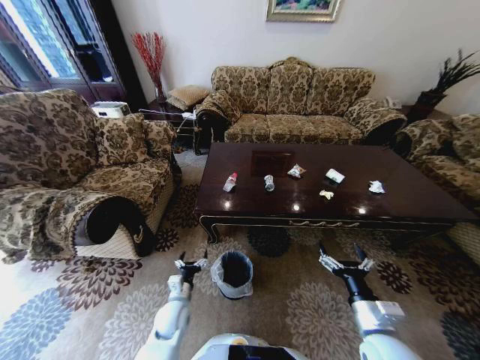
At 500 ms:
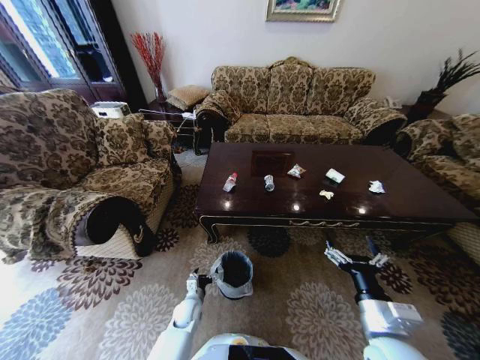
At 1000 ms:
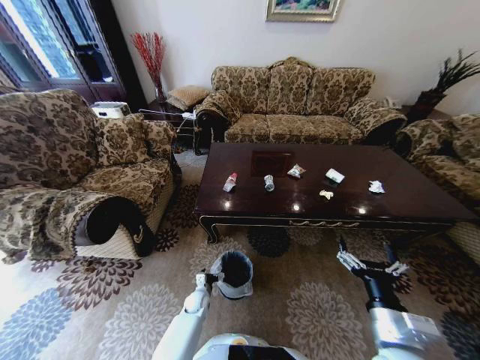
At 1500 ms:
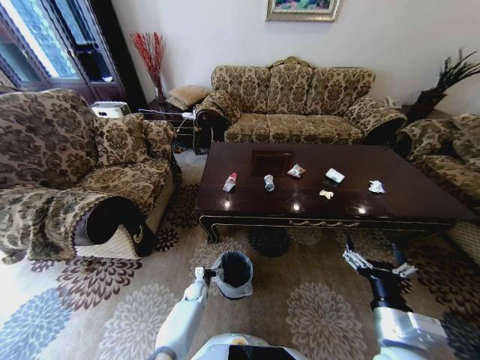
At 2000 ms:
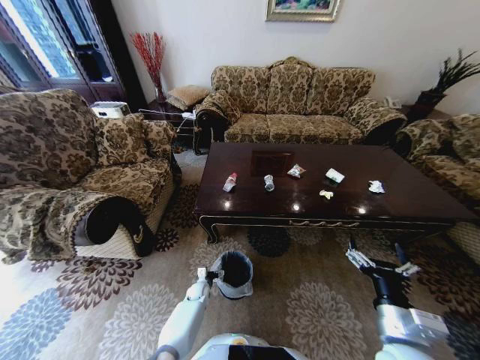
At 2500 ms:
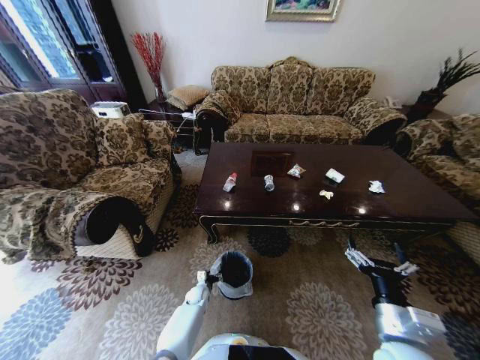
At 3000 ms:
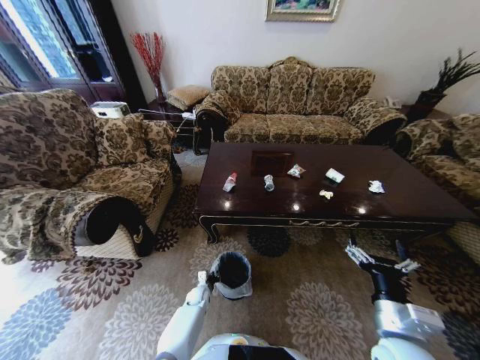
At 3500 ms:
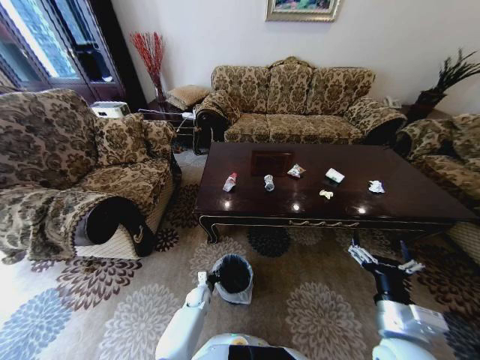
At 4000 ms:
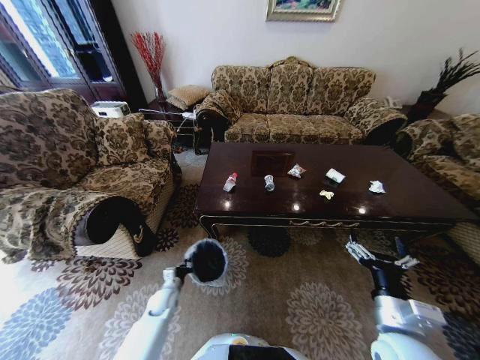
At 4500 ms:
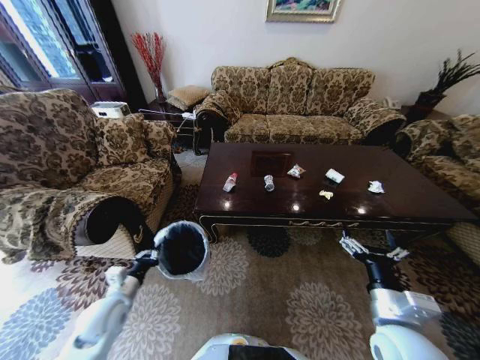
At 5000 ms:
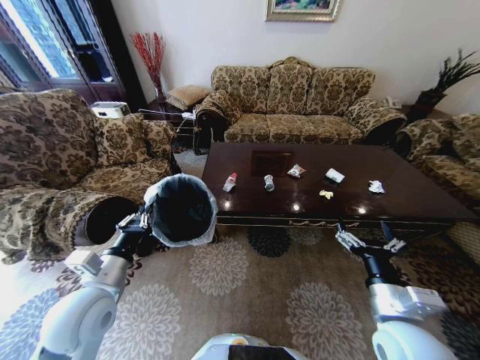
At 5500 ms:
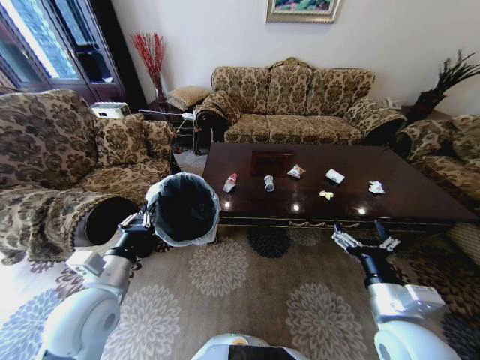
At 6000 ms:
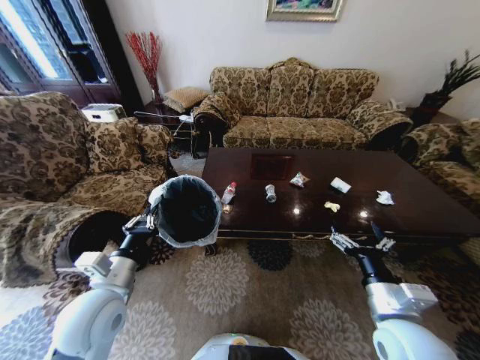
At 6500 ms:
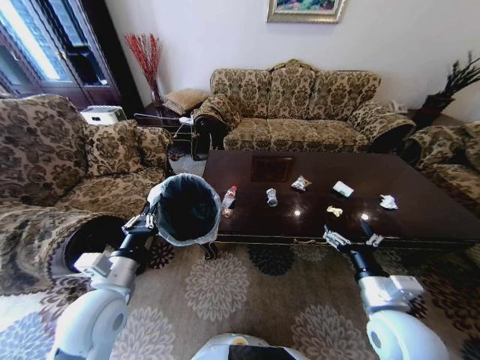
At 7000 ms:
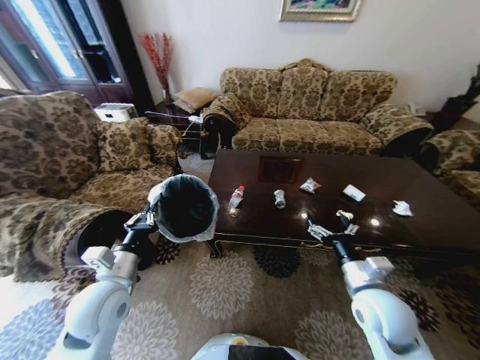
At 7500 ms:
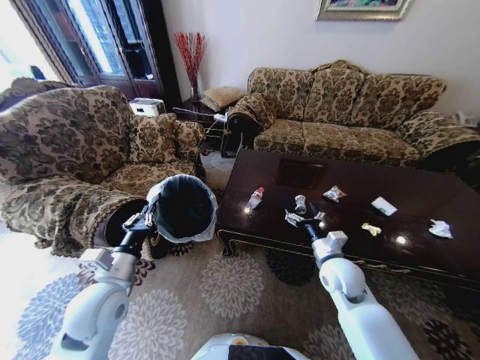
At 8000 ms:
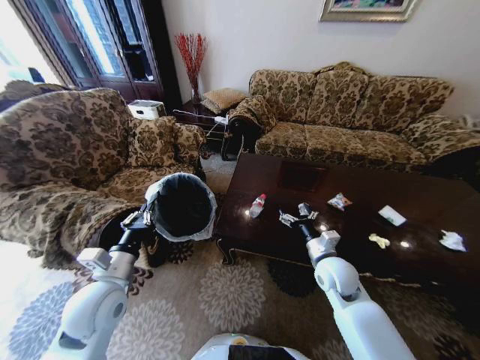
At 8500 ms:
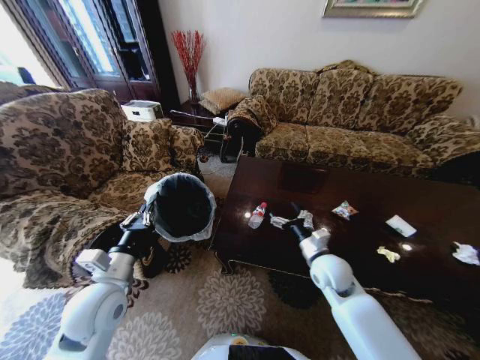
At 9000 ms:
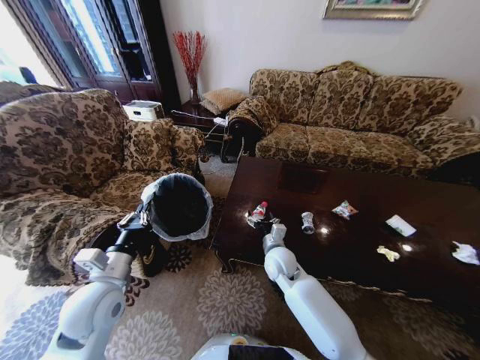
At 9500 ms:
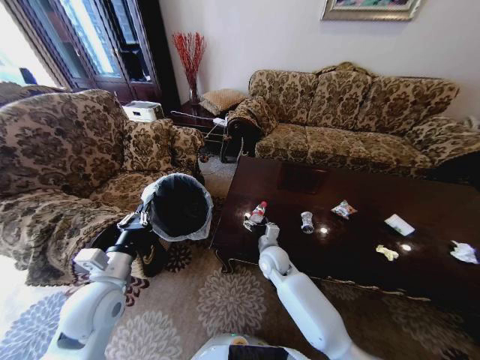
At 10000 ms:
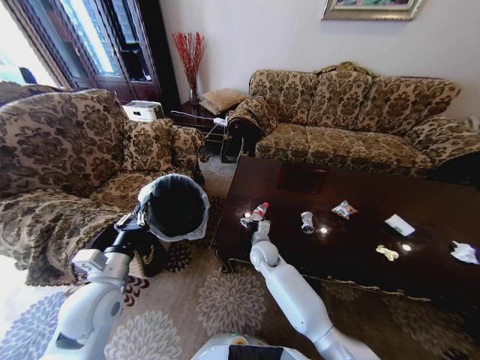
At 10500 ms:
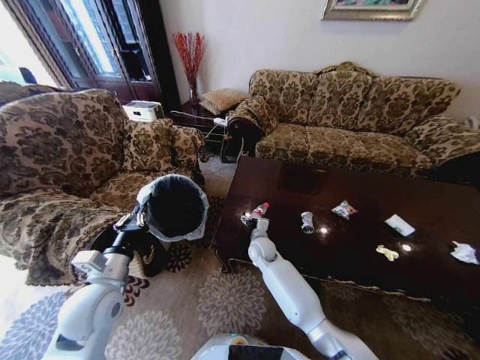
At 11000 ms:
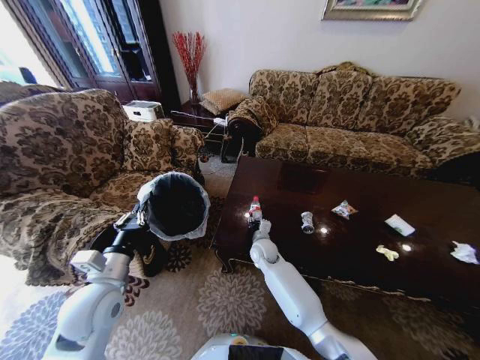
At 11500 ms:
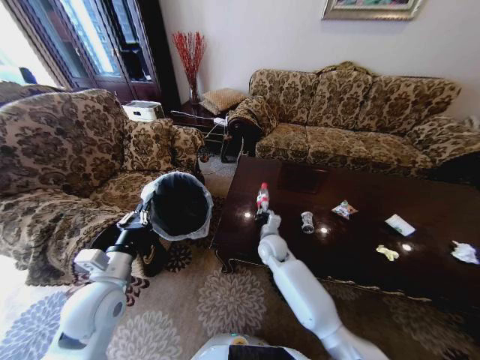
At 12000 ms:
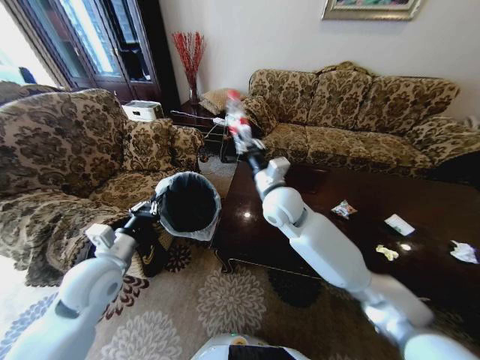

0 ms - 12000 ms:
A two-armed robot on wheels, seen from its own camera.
Task of the whole recording: Move to the front of the table and place the trash on the table into the trash bin.
0 ms - 2000 ms: The right gripper changes place by approximately 5 cm. The left gripper is displaced downward and forward by approximately 20 cm.
2000 ms - 4000 ms: The left gripper shifts roughly 15 cm to the left, upward and backward, and closes.
4000 ms - 6000 ms: The left gripper moves upward, roughly 35 cm.
6000 ms - 8000 ms: The right gripper travels forward and downward by approximately 15 cm.
8000 ms - 10000 ms: The right gripper heads to the left, forward and downward, covering approximately 20 cm.
10000 ms - 12000 ms: The right gripper moves upward, about 25 cm, and closes its fingers.

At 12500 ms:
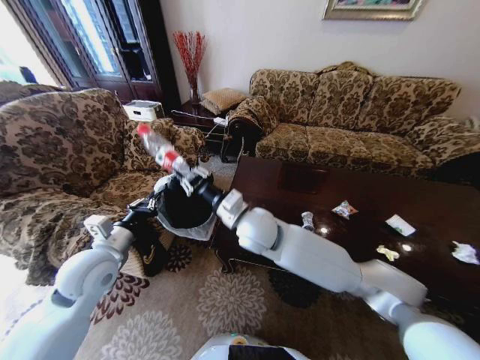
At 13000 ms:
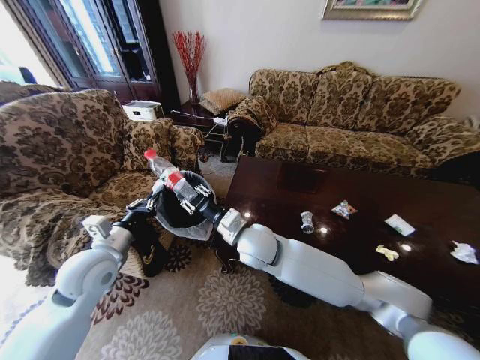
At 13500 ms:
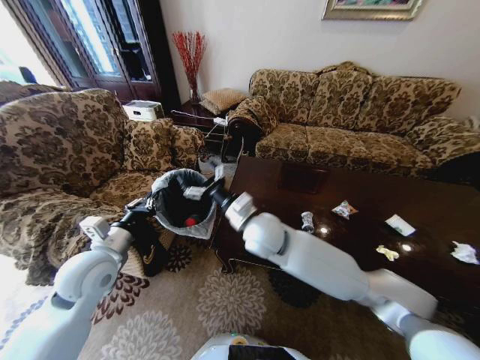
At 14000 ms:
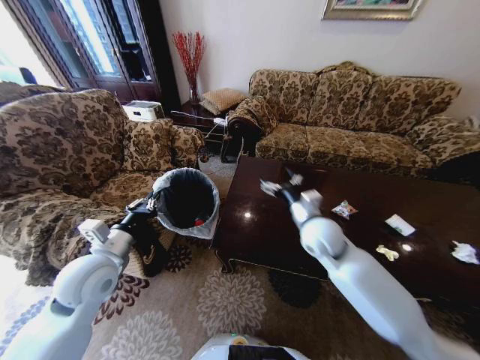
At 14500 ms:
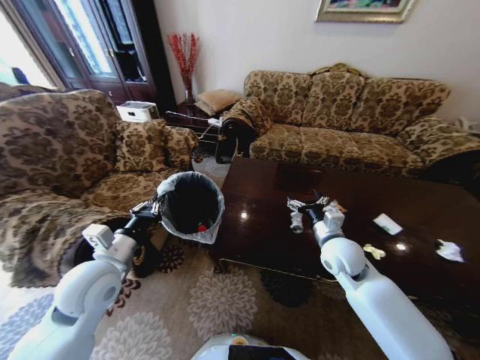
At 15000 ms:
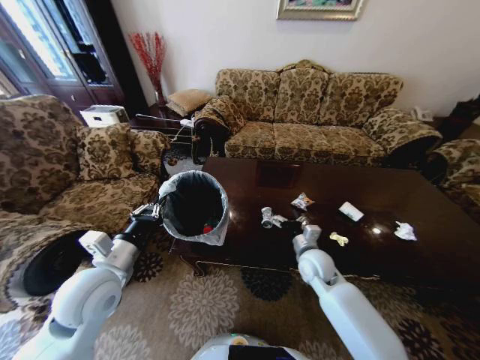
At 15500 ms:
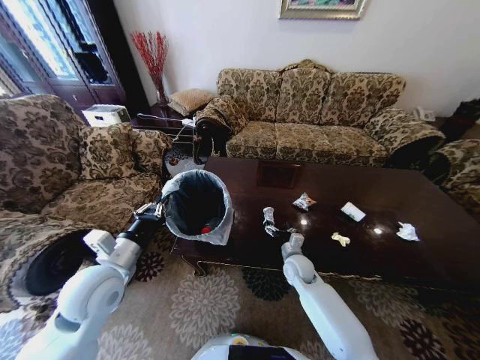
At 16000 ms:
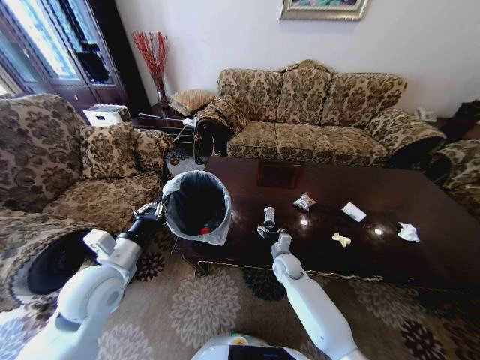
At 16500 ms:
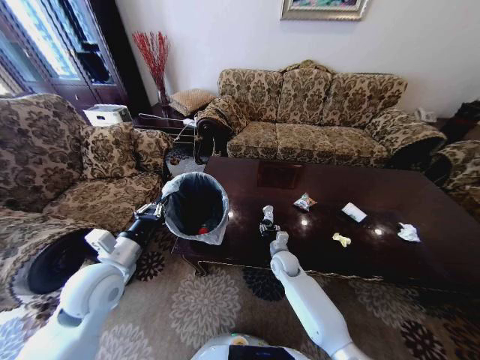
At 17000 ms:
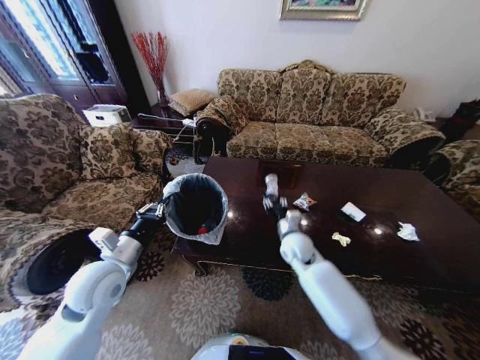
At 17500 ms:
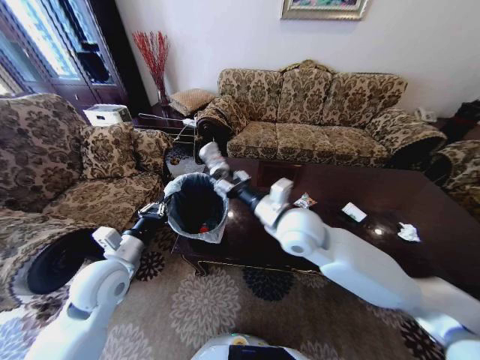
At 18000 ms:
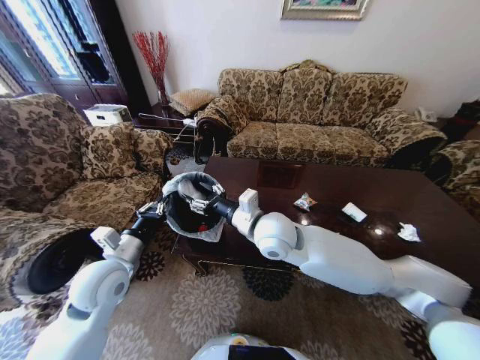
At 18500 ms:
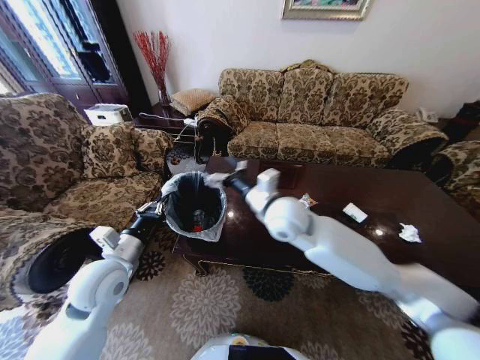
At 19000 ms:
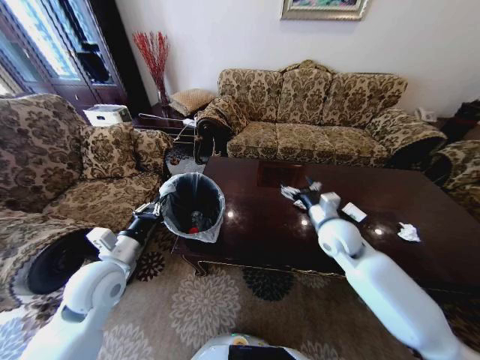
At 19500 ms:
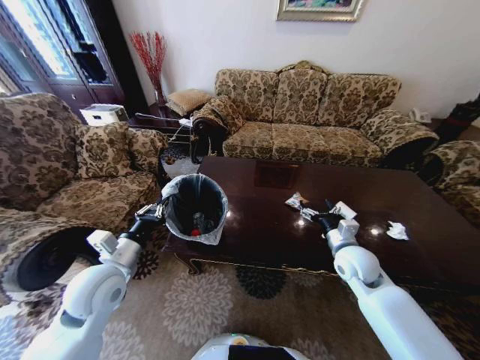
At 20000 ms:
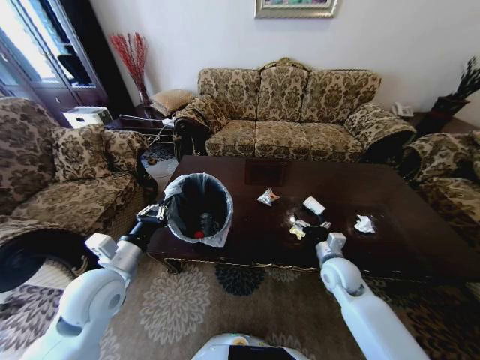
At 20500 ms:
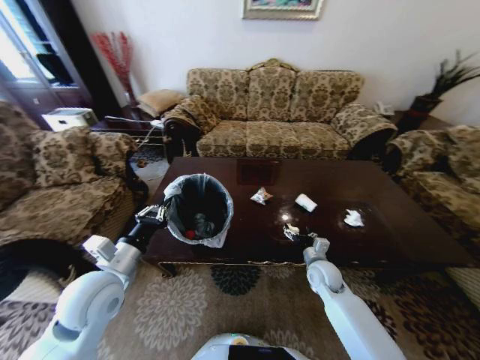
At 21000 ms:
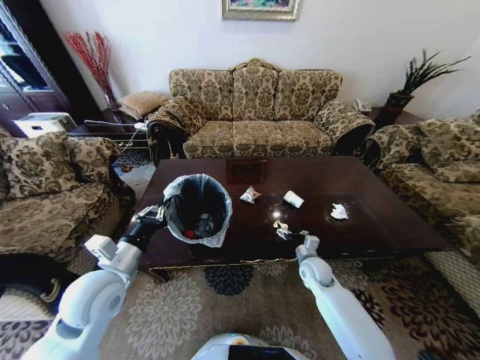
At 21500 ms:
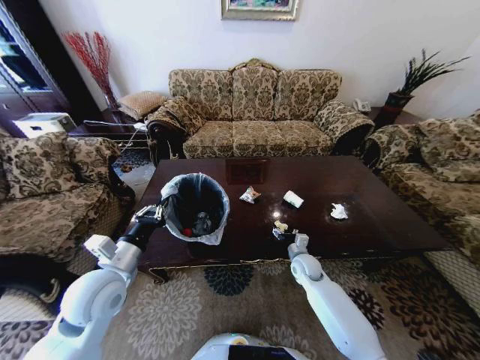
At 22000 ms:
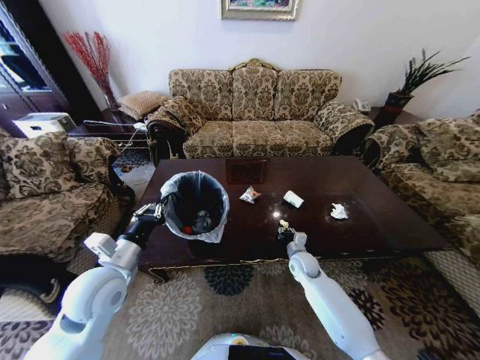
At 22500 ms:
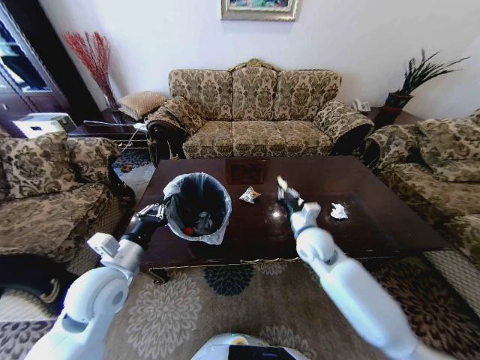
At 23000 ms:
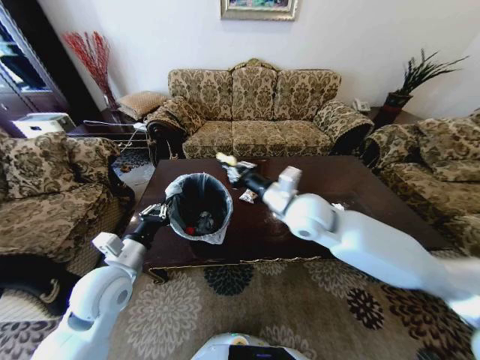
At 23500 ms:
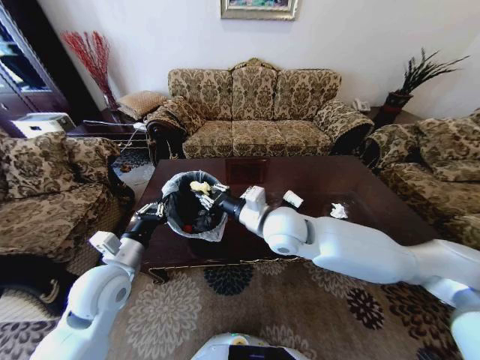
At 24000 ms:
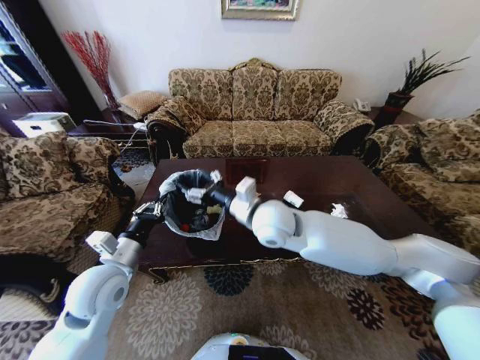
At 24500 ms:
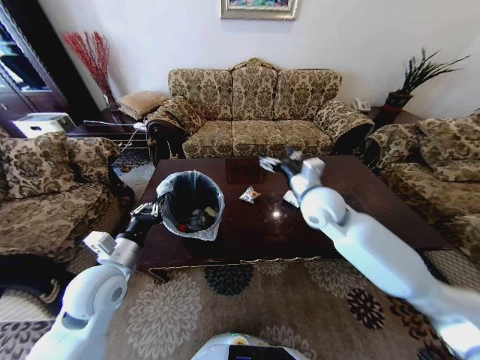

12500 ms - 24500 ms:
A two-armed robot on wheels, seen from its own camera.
Task of the whole recording: Move to the front of the table and place the trash on the table into the trash bin.
12500 ms - 14500 ms: The right gripper heads to the right, covering approximately 25 cm, and opens.
14500 ms - 16500 ms: The right gripper heads downward and to the left, covering some 20 cm, and closes up.
16500 ms - 18500 ms: The right gripper heads upward, covering some 30 cm, and opens.
18500 ms - 20500 ms: The right gripper is displaced downward and to the right by some 30 cm.
20500 ms - 22500 ms: The right gripper moves upward and to the left, some 15 cm, and closes up.
22500 ms - 24500 ms: The right gripper shifts some 10 cm upward, travels to the left and back again, approximately 15 cm each way, and opens.

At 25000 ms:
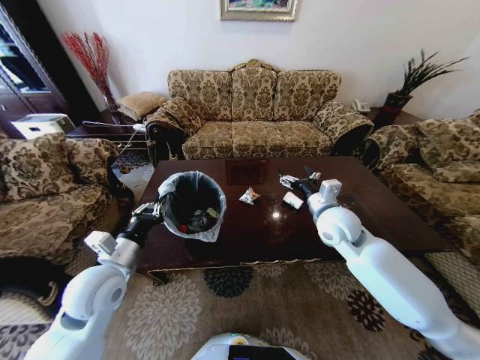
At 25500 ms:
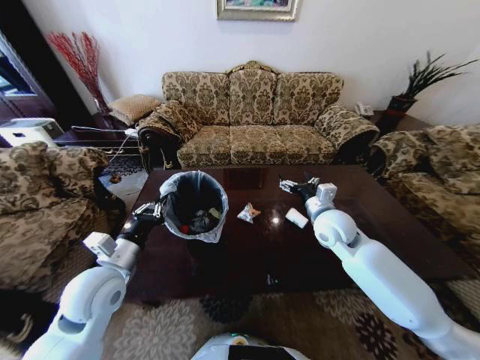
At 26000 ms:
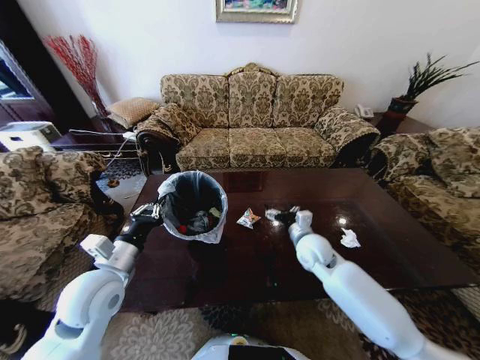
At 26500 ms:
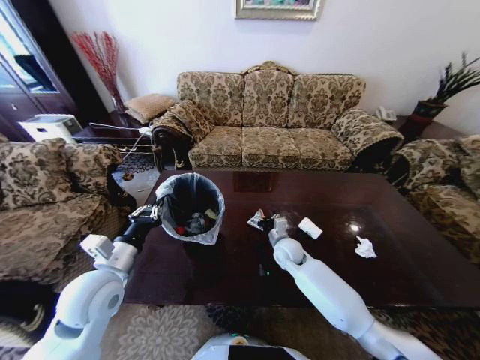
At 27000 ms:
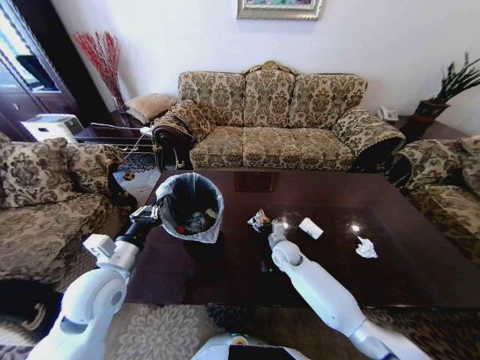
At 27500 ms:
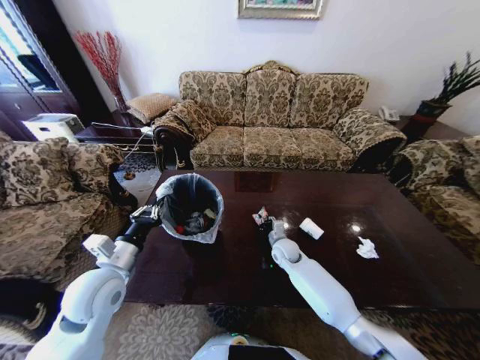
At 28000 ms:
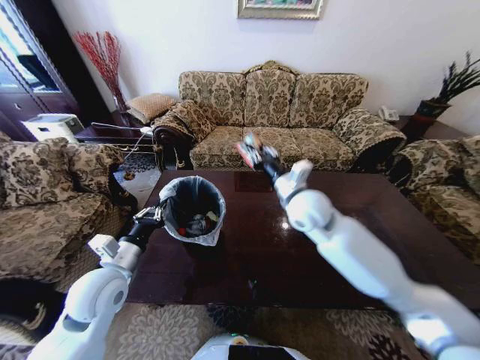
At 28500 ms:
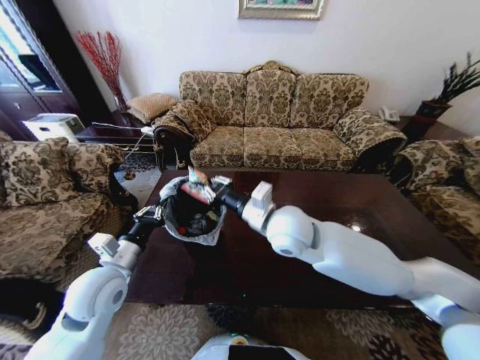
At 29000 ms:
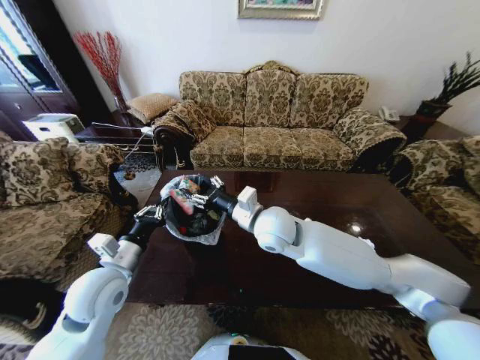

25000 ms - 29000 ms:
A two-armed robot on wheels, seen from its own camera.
Task of the whole recording: Move to the front of the table and place the trash on the table into the trash bin.
25000 ms - 27000 ms: The right gripper is displaced downward by approximately 25 cm.
27000 ms - 29000 ms: The right gripper is displaced upward by roughly 25 cm, and closes and opens again.
